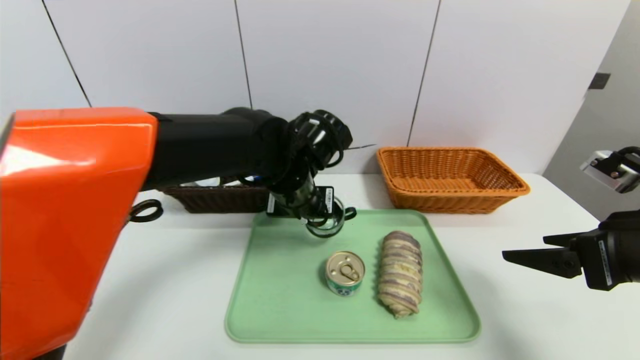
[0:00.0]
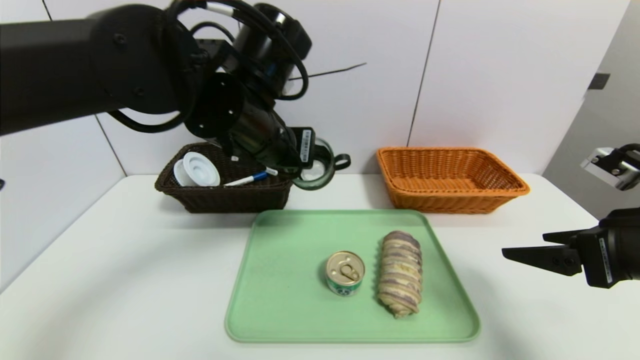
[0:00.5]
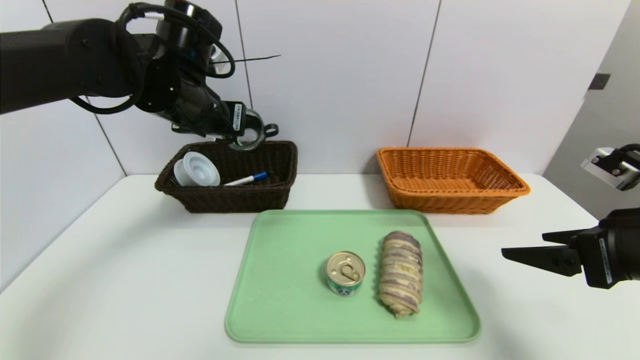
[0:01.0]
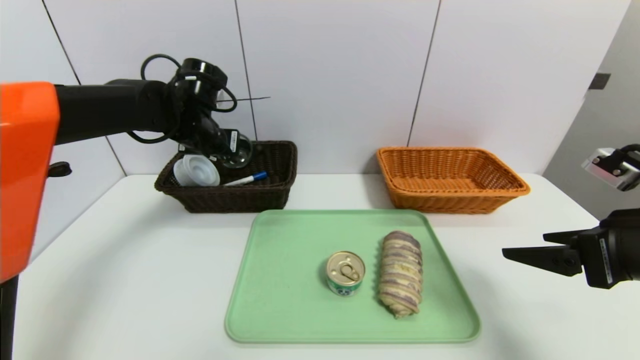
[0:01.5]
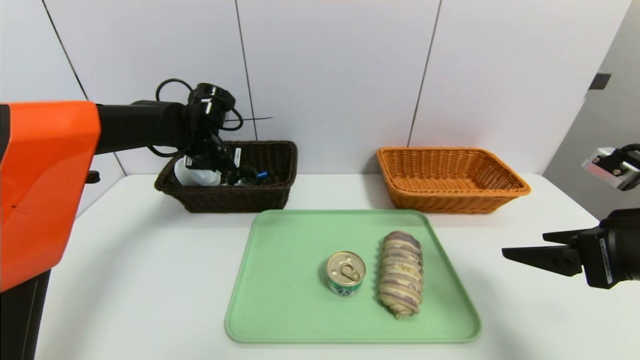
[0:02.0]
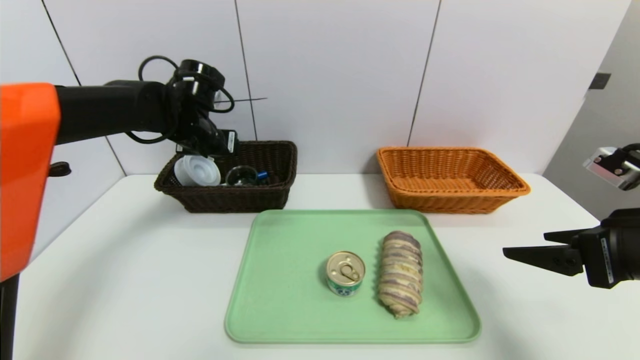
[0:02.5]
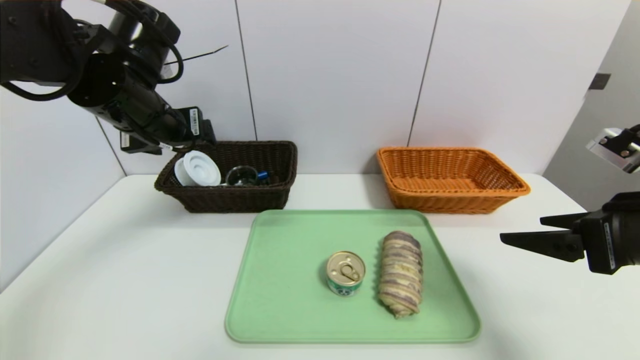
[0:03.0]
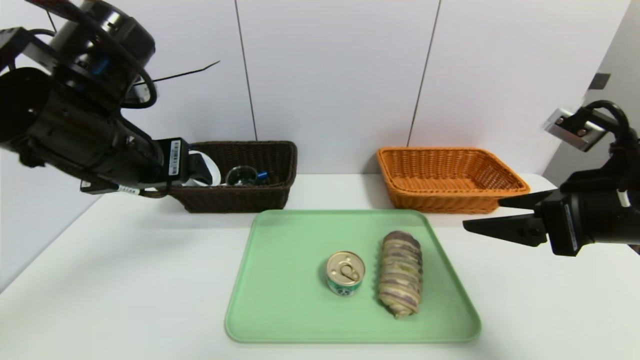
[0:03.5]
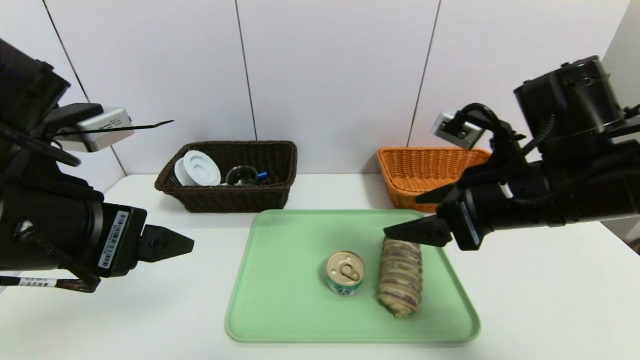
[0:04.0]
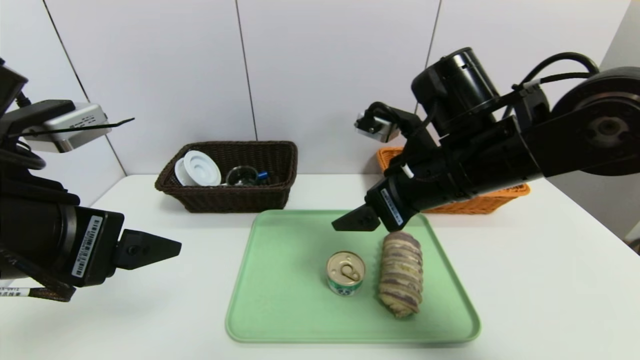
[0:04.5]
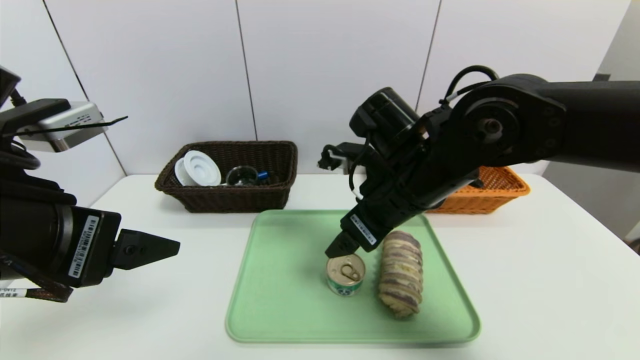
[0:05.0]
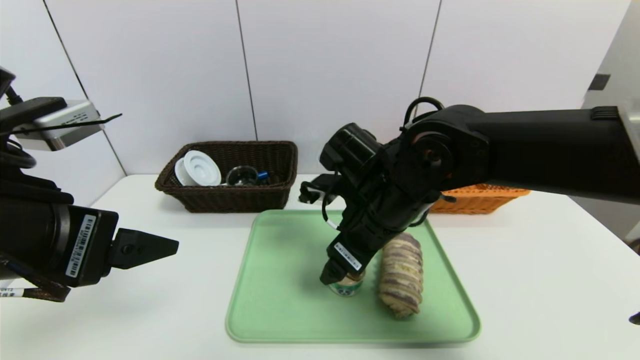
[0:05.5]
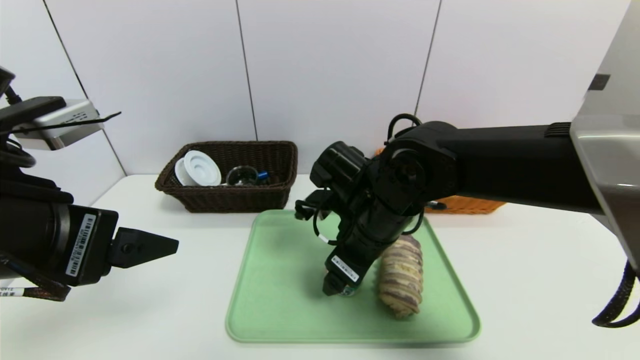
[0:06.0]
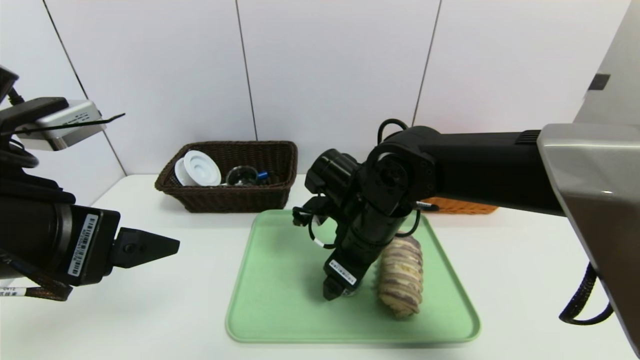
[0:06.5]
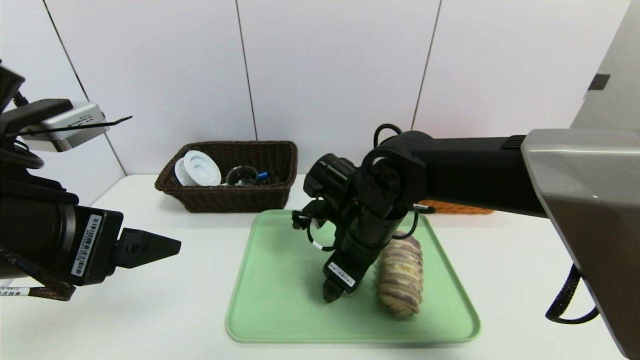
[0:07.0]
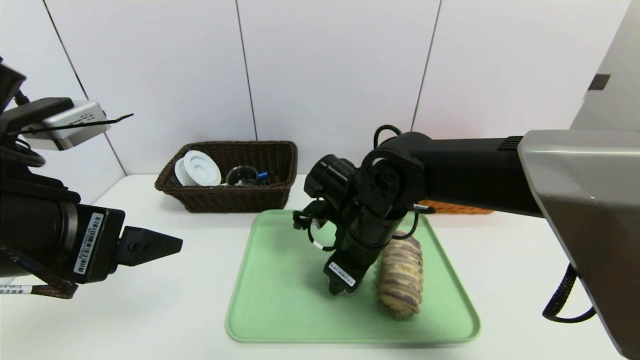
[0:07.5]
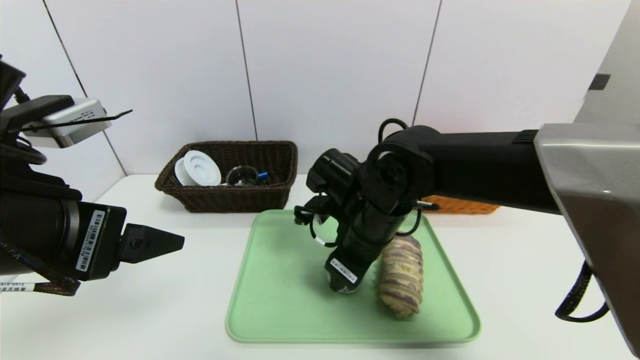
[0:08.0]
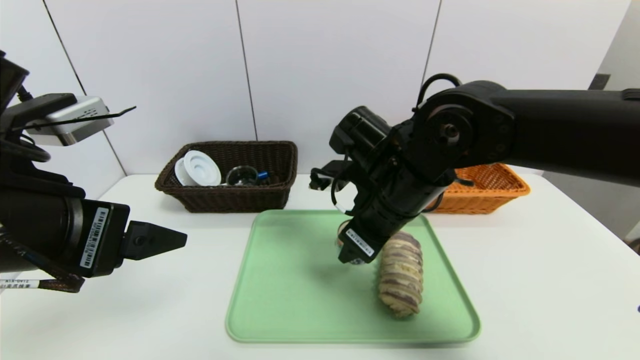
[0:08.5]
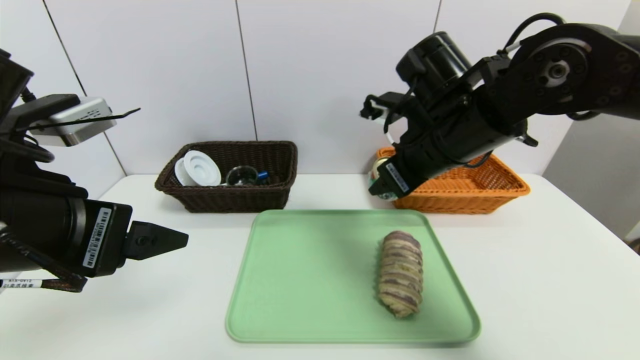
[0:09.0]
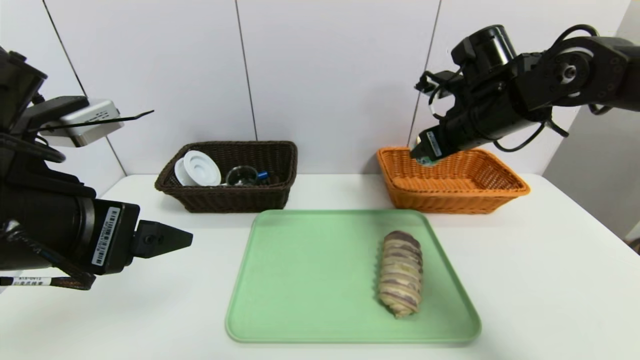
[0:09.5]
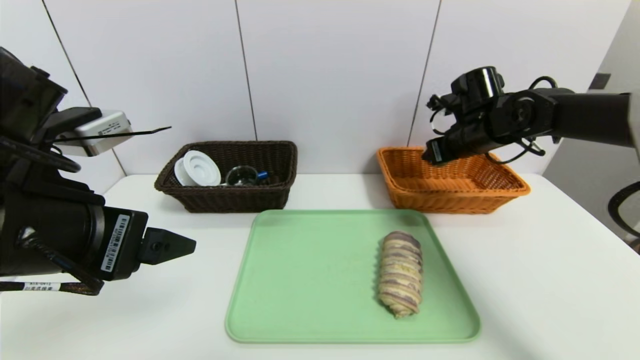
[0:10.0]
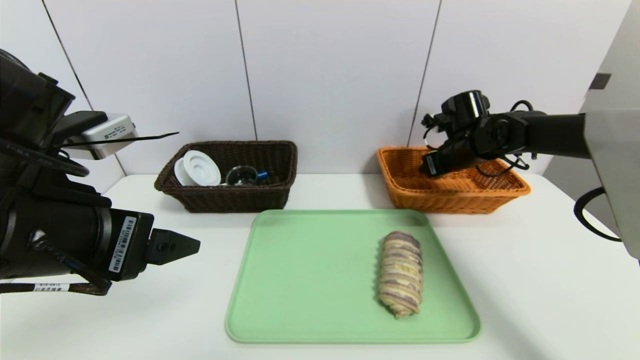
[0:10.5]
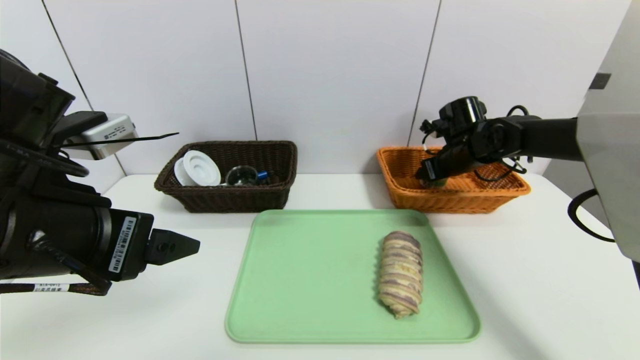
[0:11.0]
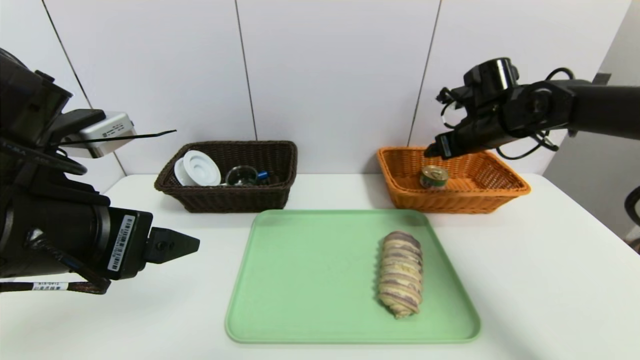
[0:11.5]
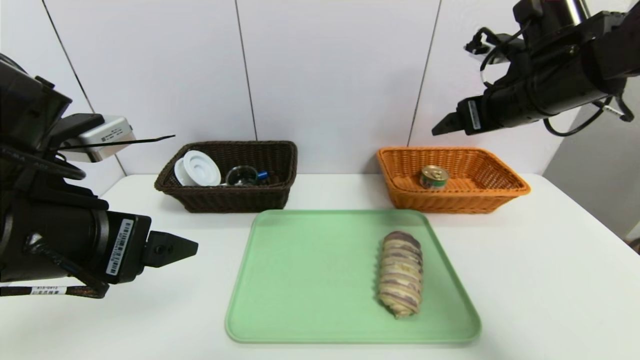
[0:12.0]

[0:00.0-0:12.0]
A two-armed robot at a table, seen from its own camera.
Task of the whole recording: place the food in the right basket with the right gripper, and place the non food items in the left basket with the left gripper.
Step, 0:00.0 to 0:02.0: Grasp the black glass cup and put it in the left basket.
Step, 0:02.5 to 0:11.0: Grasp the can and put it in the right basket.
0:00.0 to 0:02.0: The left gripper is displaced to the left and forward by approximately 20 cm, and opens.
0:02.0 to 0:04.0: The left gripper moves backward, some 30 cm, and opens. Meanwhile the right gripper heads to the left and forward, covering roughly 15 cm.
0:04.0 to 0:06.0: The right gripper is displaced to the left and downward by approximately 15 cm.
0:06.0 to 0:08.0: The right gripper closes up.
0:08.0 to 0:10.0: The right gripper travels to the right and forward by approximately 25 cm.
0:10.0 to 0:12.0: The right gripper is displaced backward and upward by approximately 15 cm, and opens its fingers.

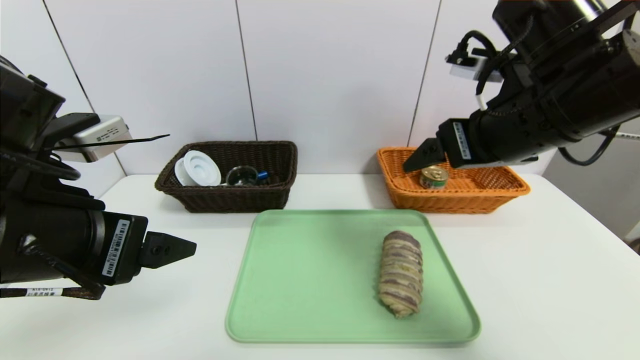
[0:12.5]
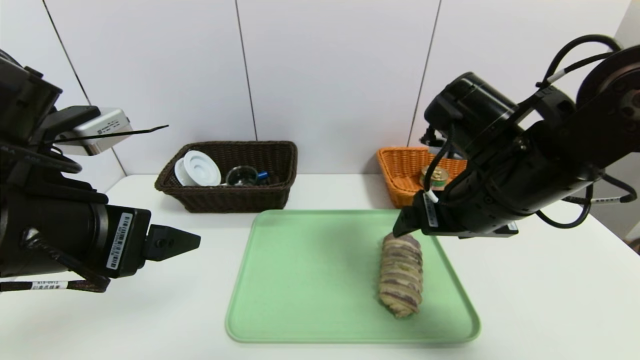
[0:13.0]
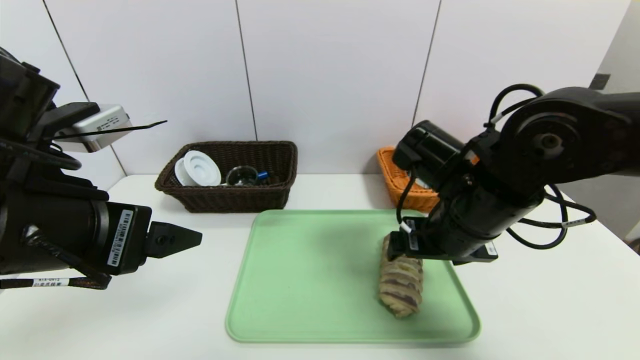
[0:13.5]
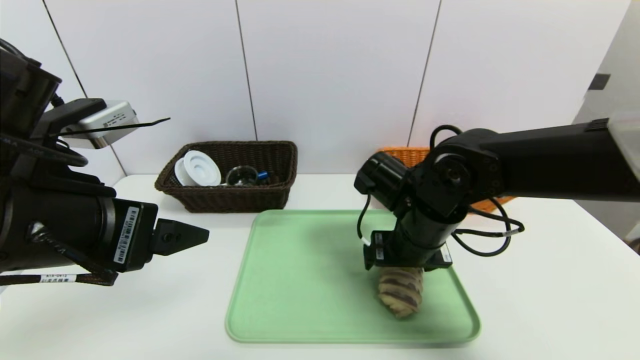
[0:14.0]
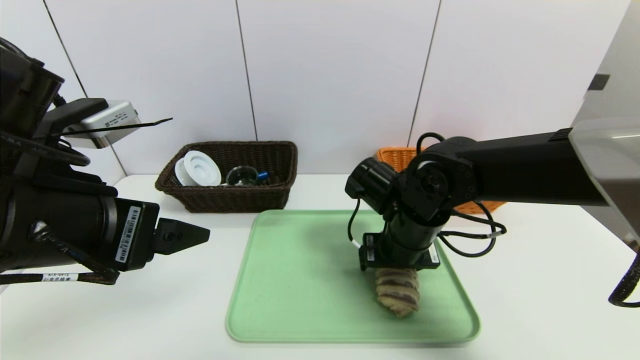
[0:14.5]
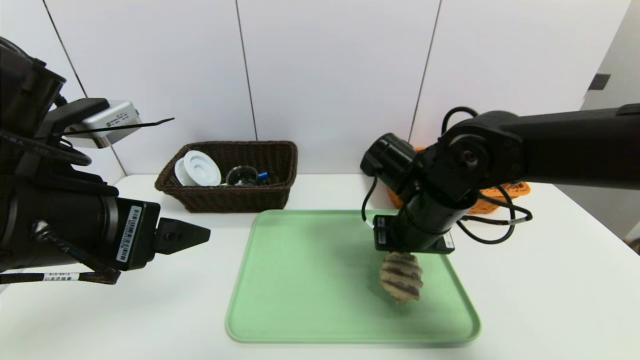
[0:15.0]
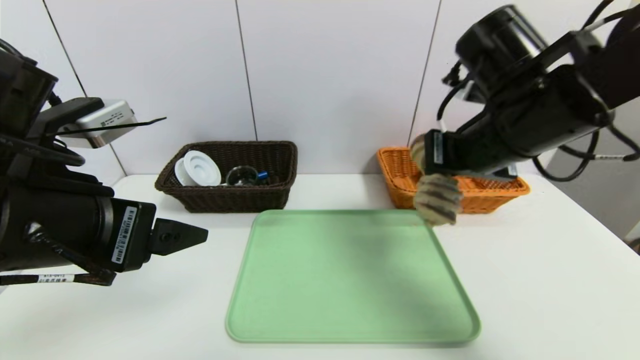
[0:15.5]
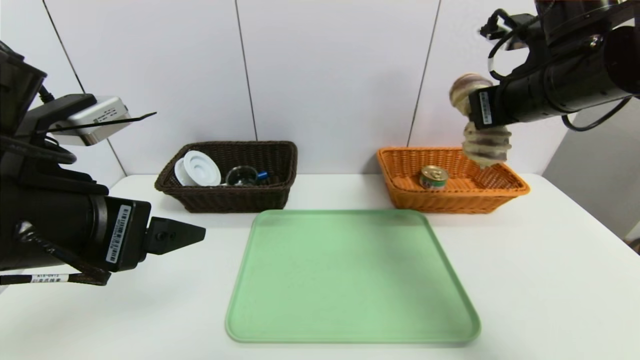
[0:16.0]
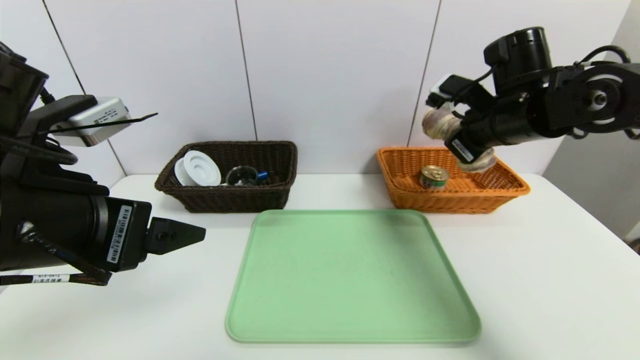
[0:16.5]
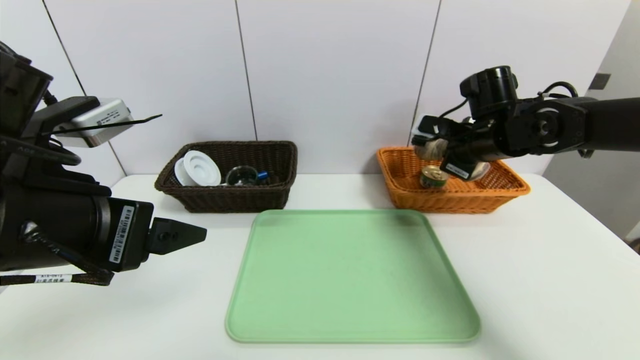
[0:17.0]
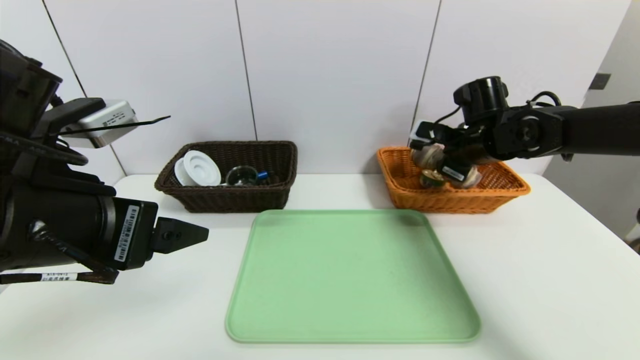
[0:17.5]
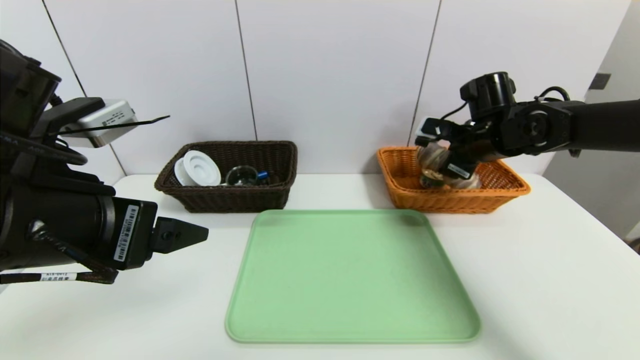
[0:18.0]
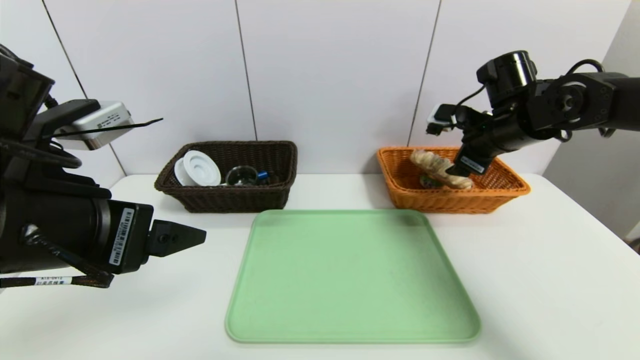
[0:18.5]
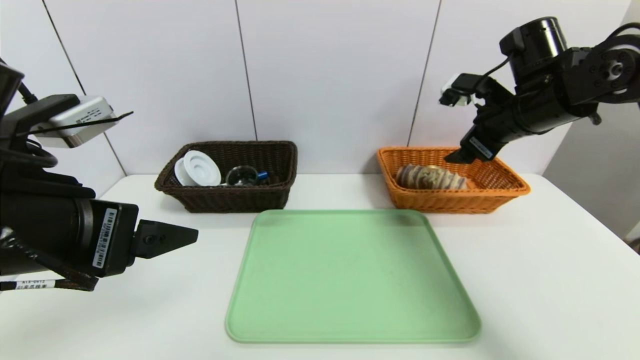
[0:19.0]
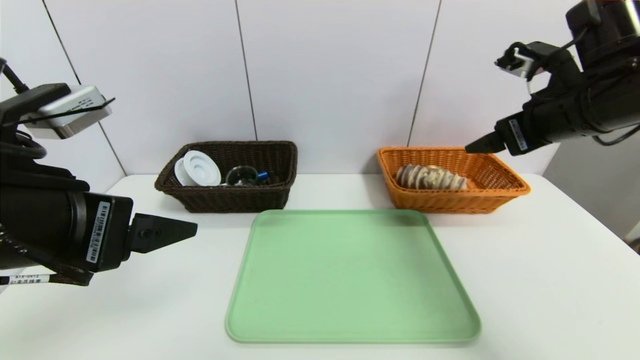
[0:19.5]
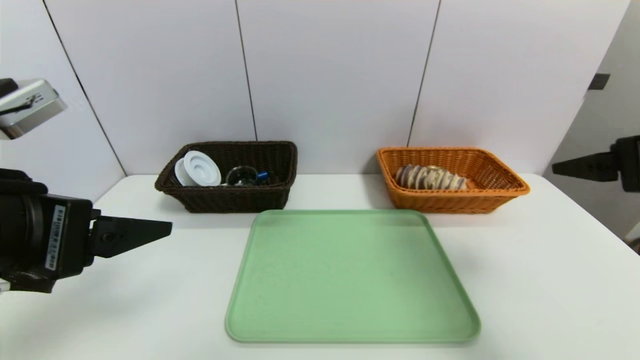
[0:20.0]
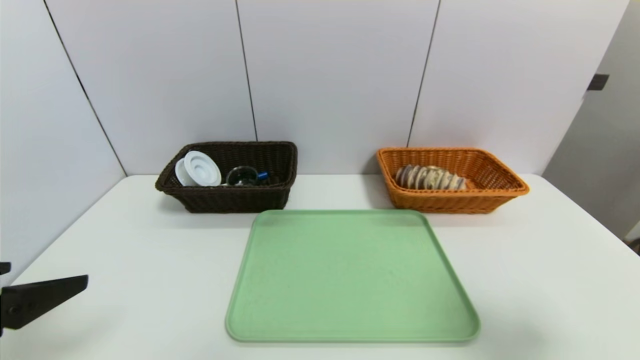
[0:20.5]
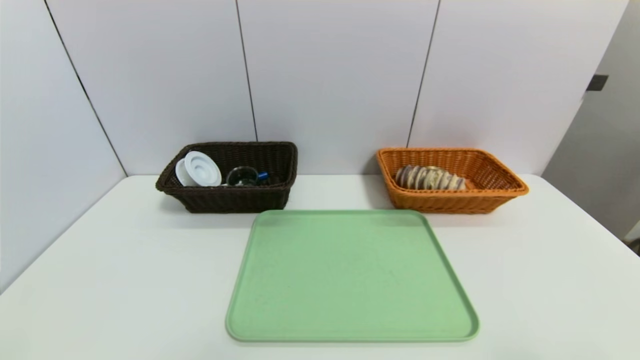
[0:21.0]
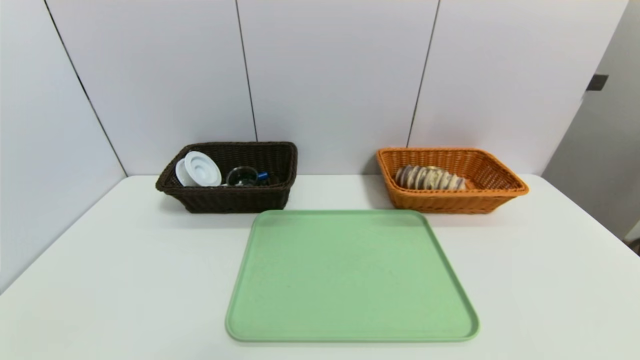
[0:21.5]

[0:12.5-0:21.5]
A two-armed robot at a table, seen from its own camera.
Task of the whole recording: place the food in the right basket with the right gripper, and place the non food items in the left basket with the left gripper.
Step, 0:12.5 to 0:18.5: Grasp the long bread and put it in the right basket.
0:12.5 to 0:14.5: The right gripper travels downward and to the left by about 20 cm.
0:14.5 to 0:17.0: The right gripper heads to the right, forward and upward, covering about 20 cm, and closes.
0:17.0 to 0:19.5: The right gripper moves backward and upward, roughly 15 cm, and opens its fingers.
0:19.5 to 0:21.5: The left gripper moves backward, downward and to the left, approximately 25 cm, while the right gripper heads backward, covering approximately 35 cm.
